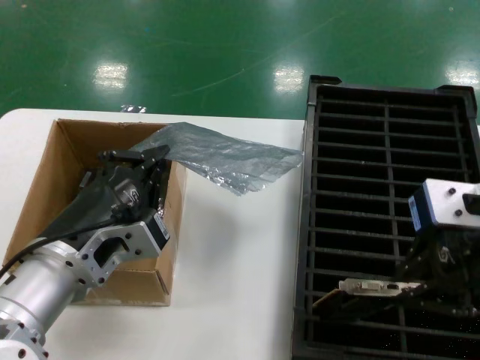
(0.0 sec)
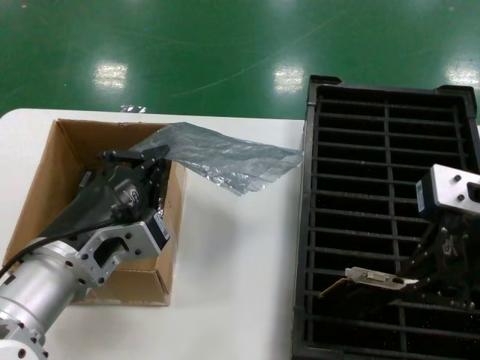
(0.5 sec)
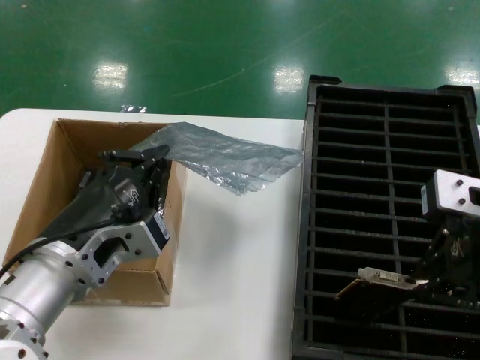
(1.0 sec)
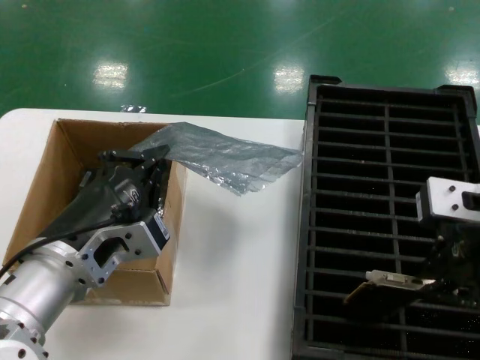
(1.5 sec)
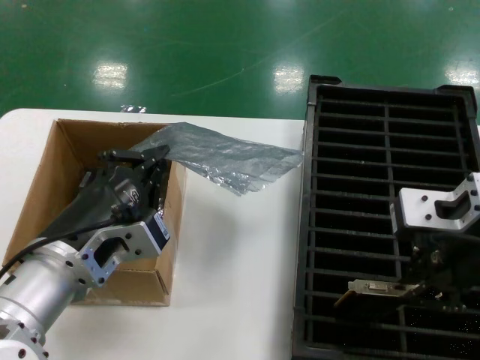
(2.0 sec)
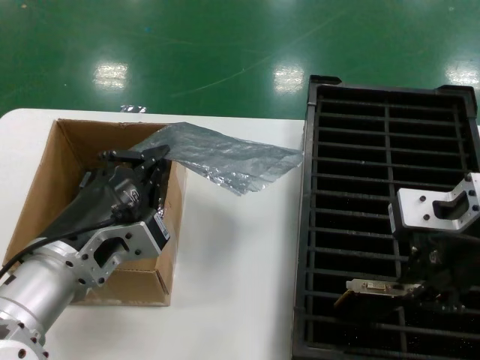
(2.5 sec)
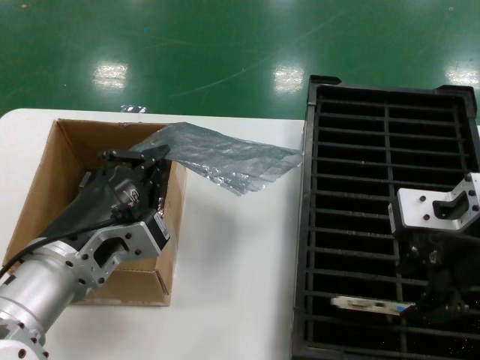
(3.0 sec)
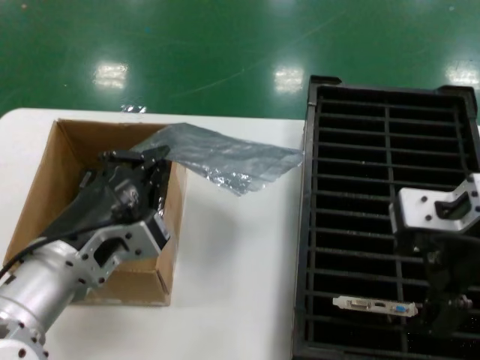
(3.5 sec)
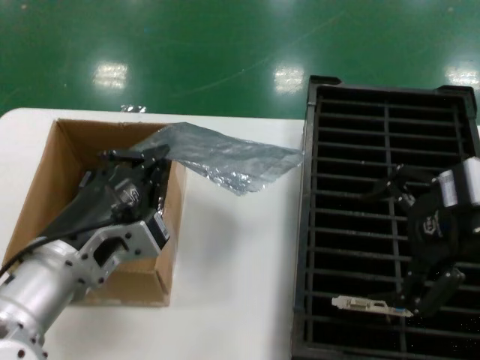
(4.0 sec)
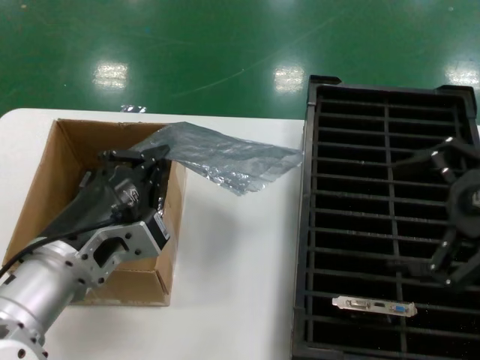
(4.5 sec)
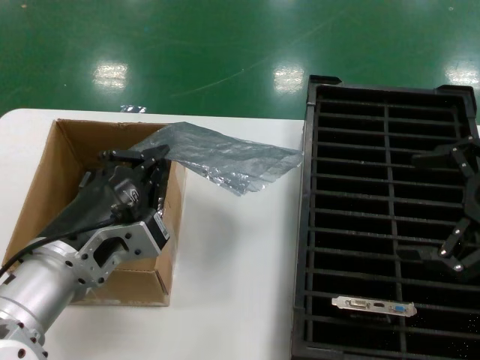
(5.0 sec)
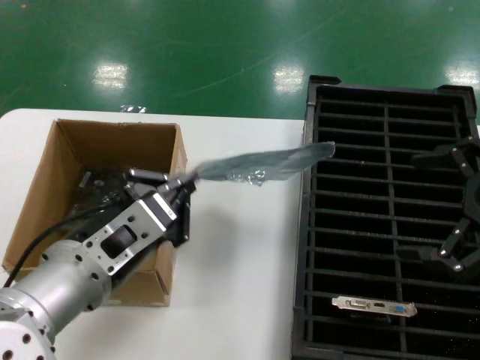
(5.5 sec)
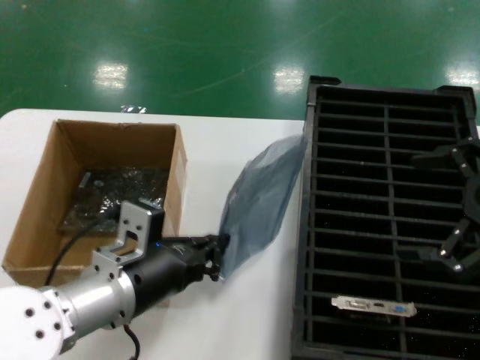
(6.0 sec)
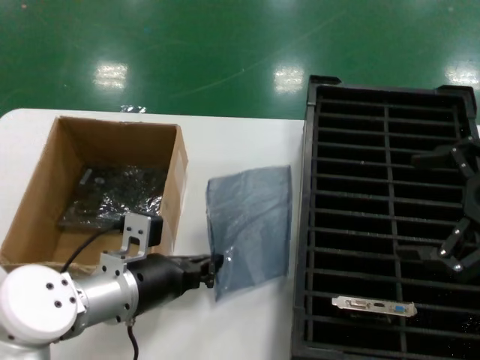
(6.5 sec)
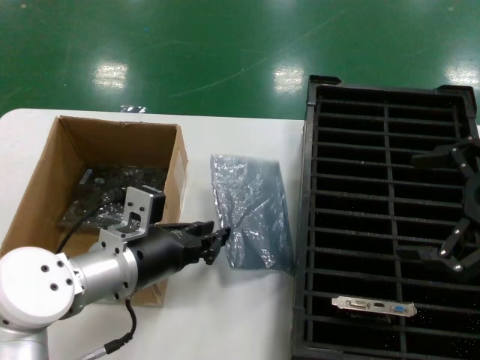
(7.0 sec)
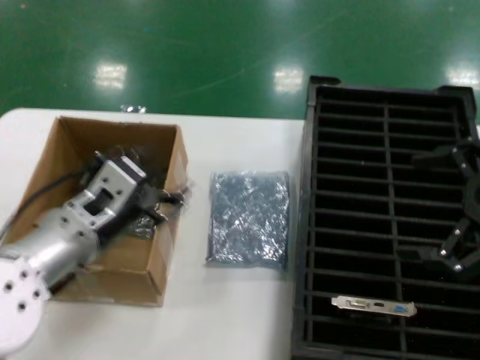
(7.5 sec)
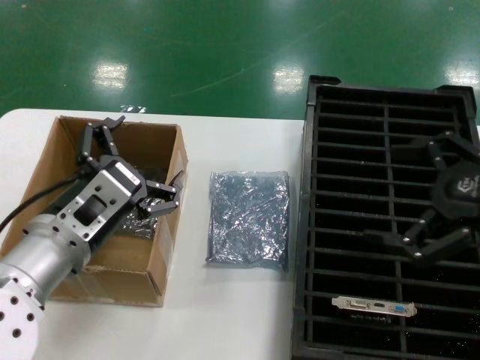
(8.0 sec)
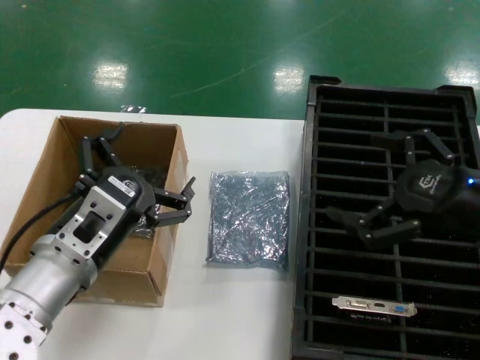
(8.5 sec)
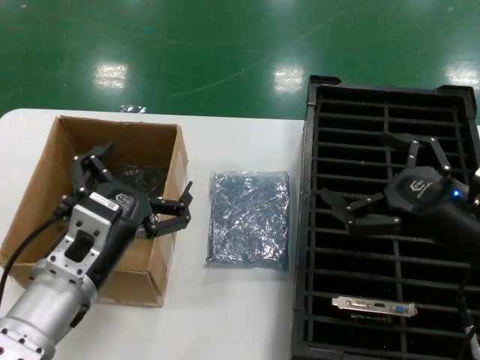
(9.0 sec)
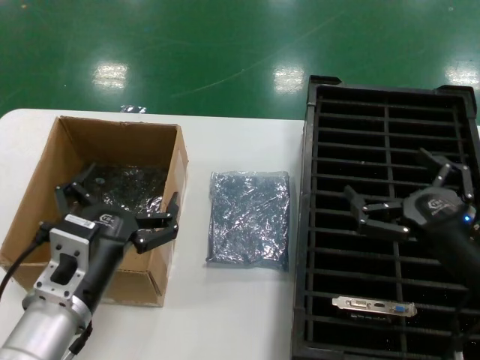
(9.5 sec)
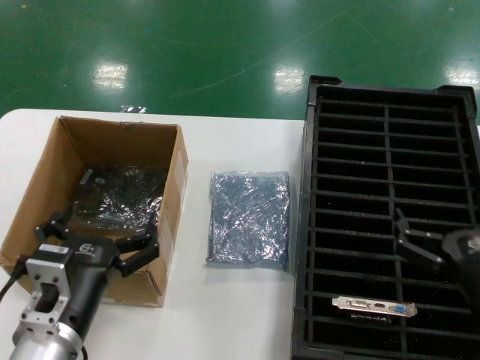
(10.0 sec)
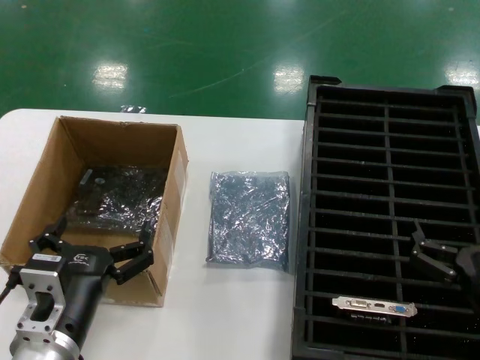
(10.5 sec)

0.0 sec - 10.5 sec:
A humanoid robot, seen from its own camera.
Task of the whole recording: take out graphics card from box remove packaging put into black container.
Step, 0.0 sec - 3.0 sec: Place the hard disk in the hard disk enclosure.
Step, 3.5 sec - 7.0 sec: Place the down the bag.
0.0 sec - 2.0 sec: There are only small adjustments of the hands.
2.0 sec - 4.0 sec: The right hand is displaced to the right by about 5 cm.
4.0 sec - 6.5 sec: The right hand moves to the right, about 10 cm. Meanwhile the left hand heads forward and downward, covering some 10 cm.
6.5 sec - 8.5 sec: The left hand ends up approximately 5 cm from where it was. The right hand travels downward and to the left by some 10 cm.
8.5 sec - 10.5 sec: The left hand travels downward by roughly 10 cm. Meanwhile the right hand goes approximately 20 cm downward and backward.
